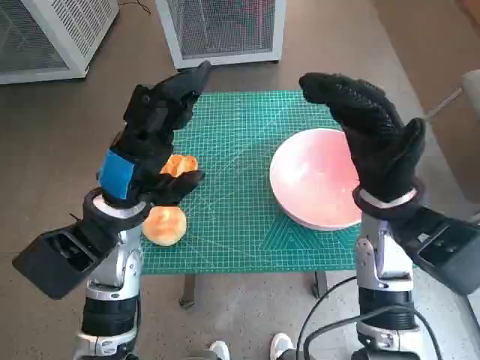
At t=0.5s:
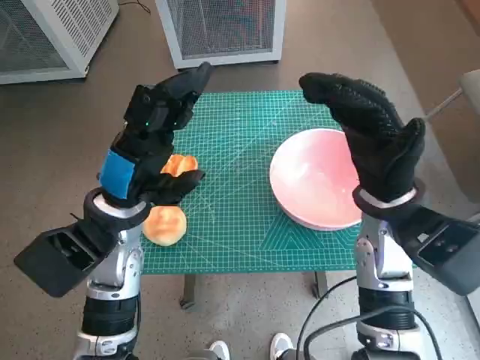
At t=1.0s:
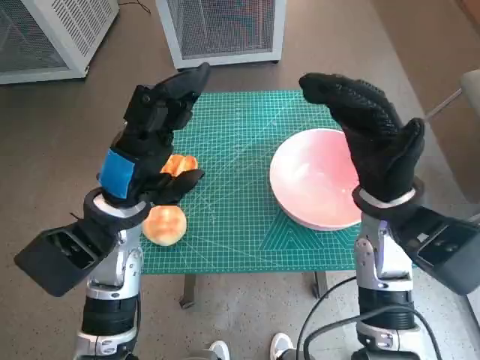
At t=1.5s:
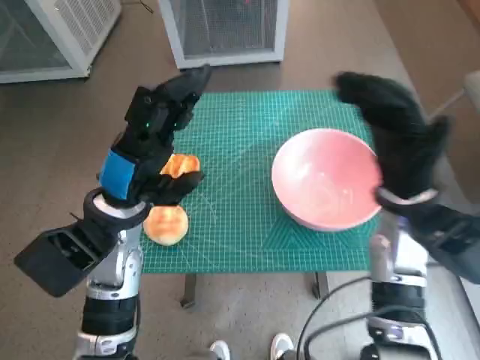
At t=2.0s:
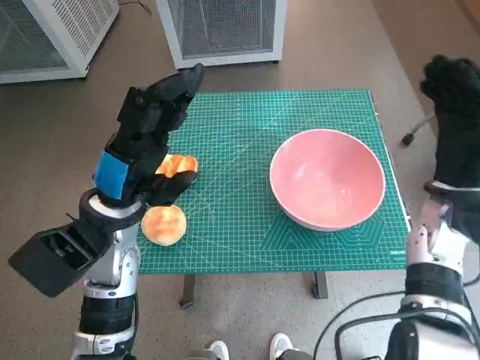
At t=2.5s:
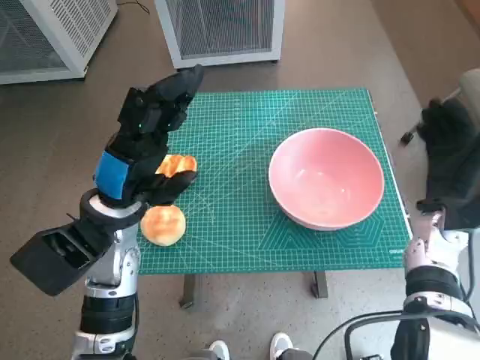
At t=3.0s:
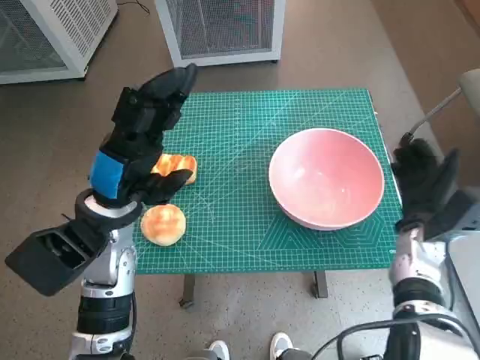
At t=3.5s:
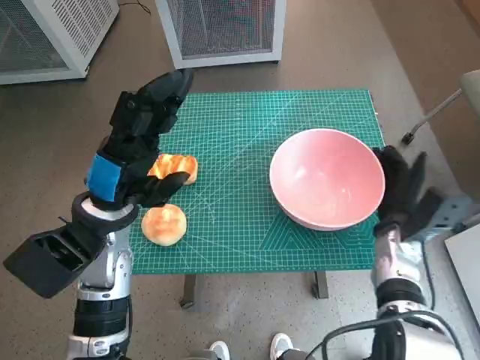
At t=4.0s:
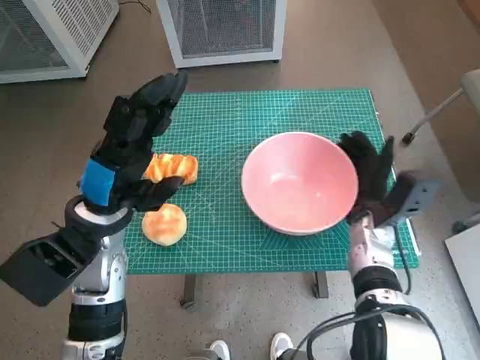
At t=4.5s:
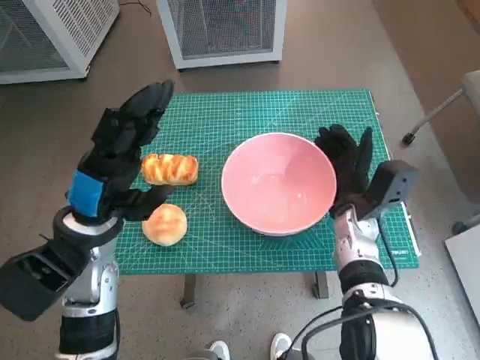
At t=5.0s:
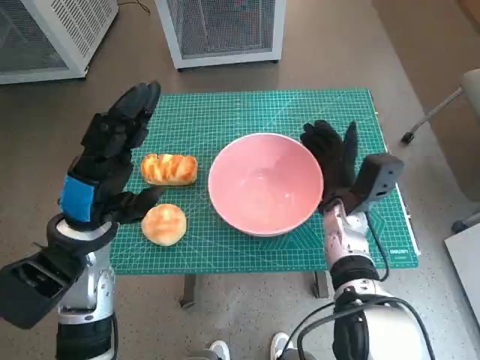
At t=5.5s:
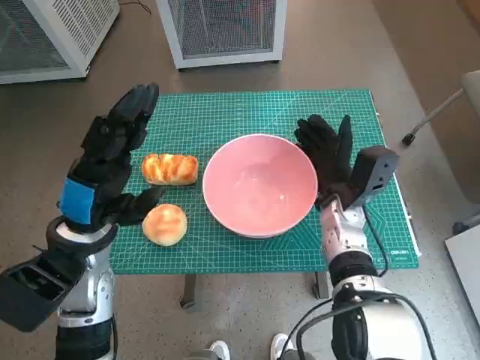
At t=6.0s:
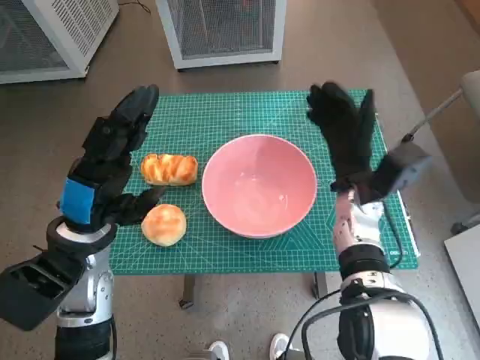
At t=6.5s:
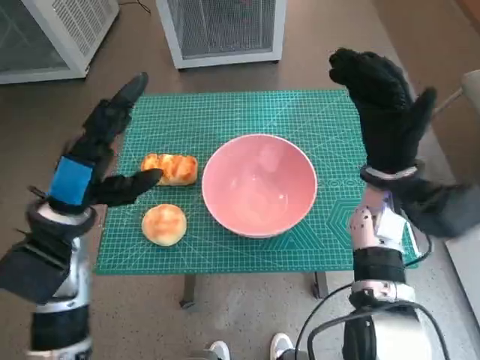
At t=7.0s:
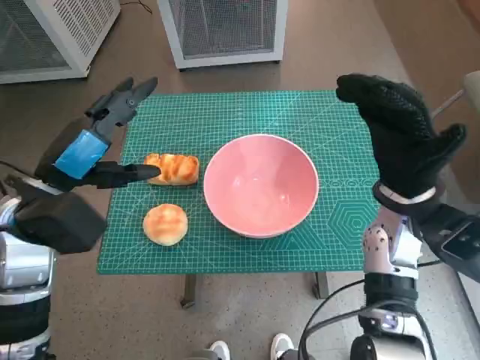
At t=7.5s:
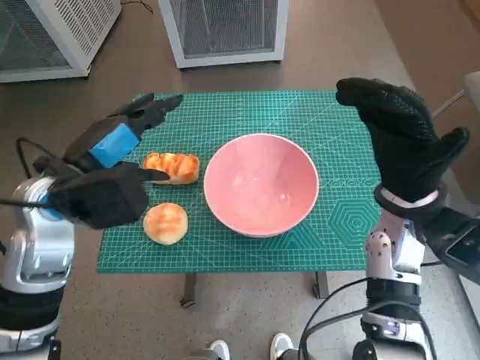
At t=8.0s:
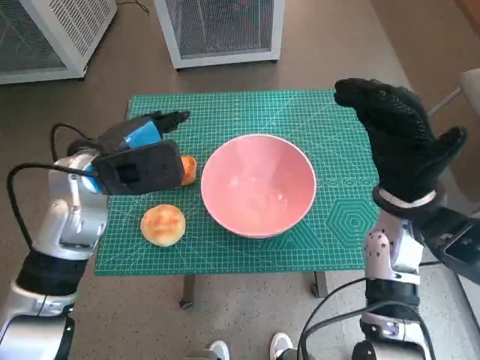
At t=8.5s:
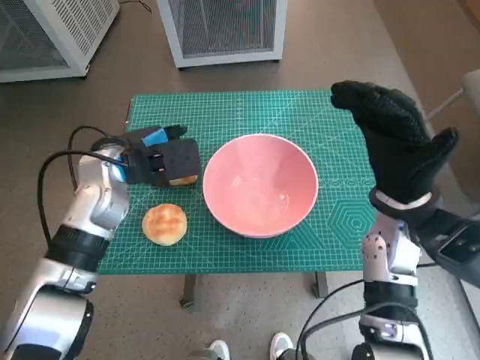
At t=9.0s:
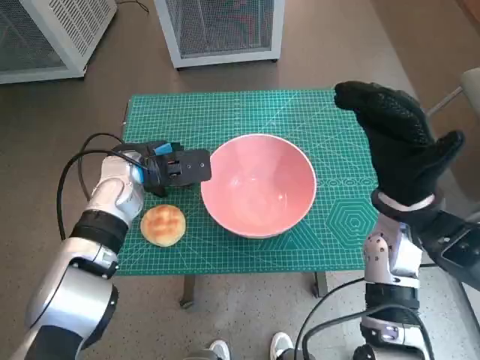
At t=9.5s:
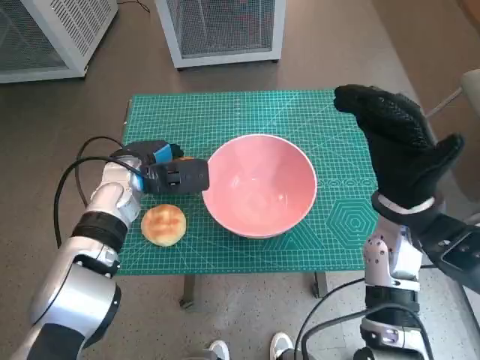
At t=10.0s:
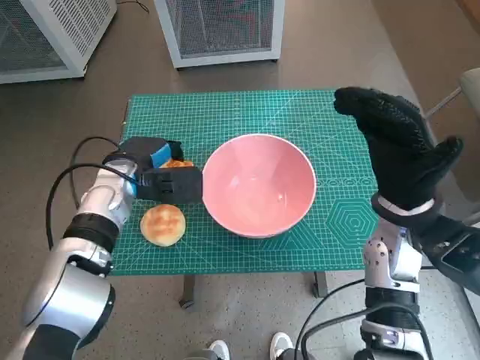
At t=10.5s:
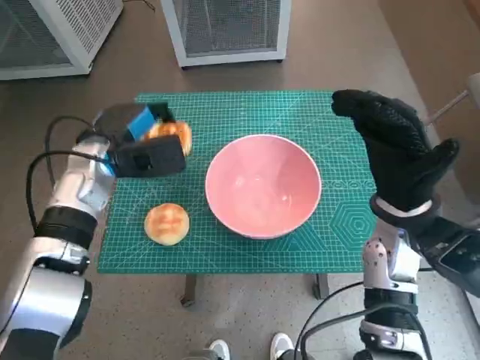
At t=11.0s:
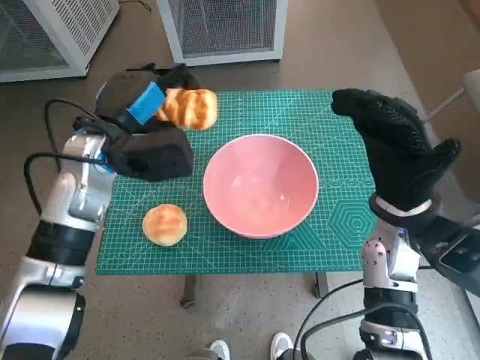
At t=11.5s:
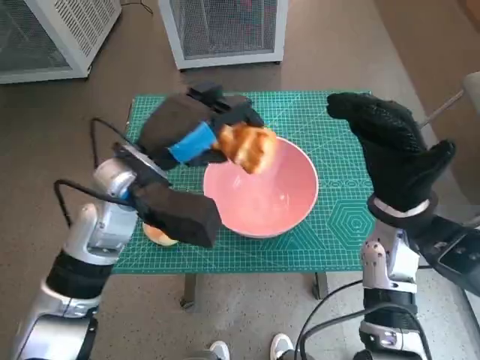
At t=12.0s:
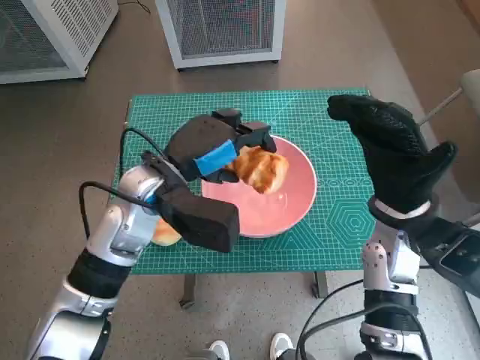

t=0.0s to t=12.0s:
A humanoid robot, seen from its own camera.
Task of the whole recording: Push the bowl into the center of the table and put the bread into the bowl.
Step, t=0.0s to t=5.5s: Move the pink bowl to the center of table with right hand.
Step, t=6.0s to t=9.5s: Grasp the long bread with left hand.
t=2.0s to t=4.0s: The right hand is displaced downward and to the left by about 10 cm.
t=4.0s to t=6.0s: The right hand is displaced upward by about 5 cm.
t=6.0s to t=8.0s: The right hand shifts approximately 5 cm upward. The left hand travels forward and upward by some 10 cm.
t=8.0s to t=10.0s: The left hand goes roughly 10 cm downward and forward.
t=10.0s to t=12.0s: The left hand moves to the right, upward and backward, roughly 10 cm.

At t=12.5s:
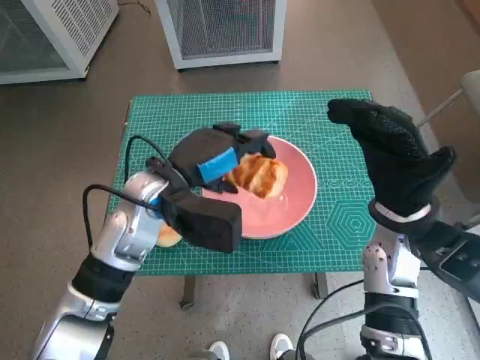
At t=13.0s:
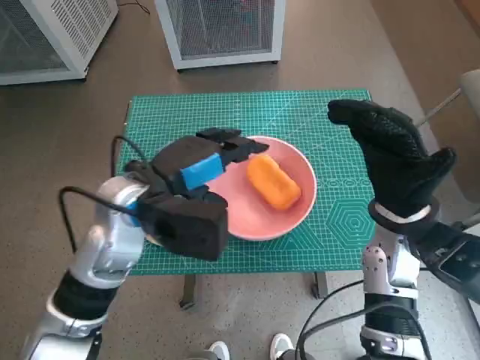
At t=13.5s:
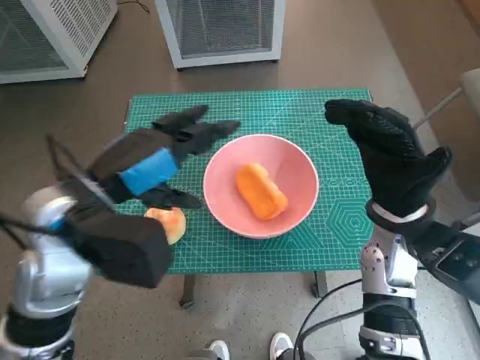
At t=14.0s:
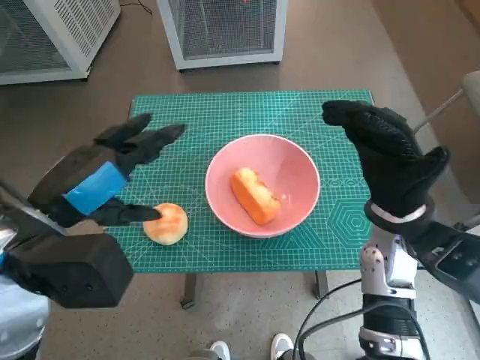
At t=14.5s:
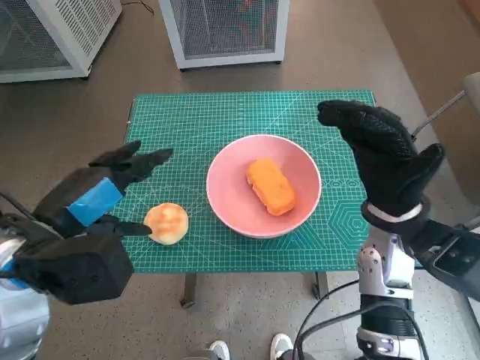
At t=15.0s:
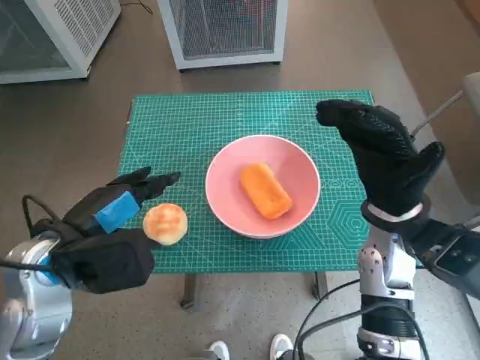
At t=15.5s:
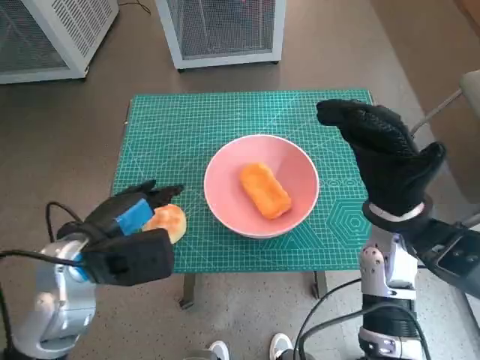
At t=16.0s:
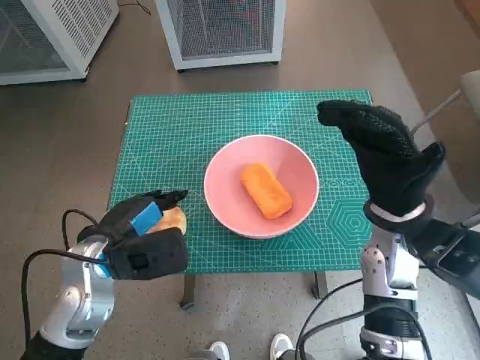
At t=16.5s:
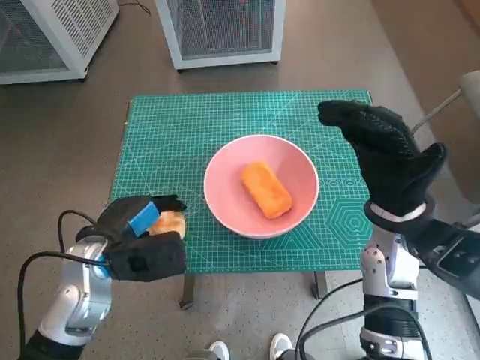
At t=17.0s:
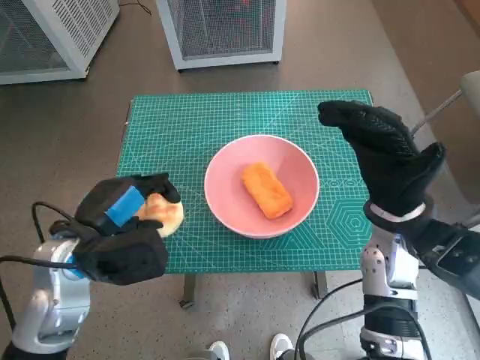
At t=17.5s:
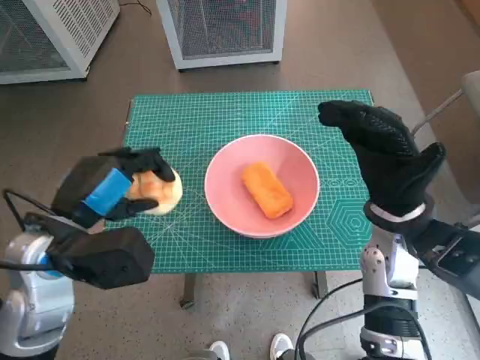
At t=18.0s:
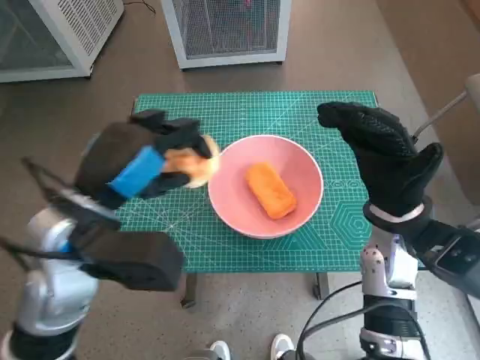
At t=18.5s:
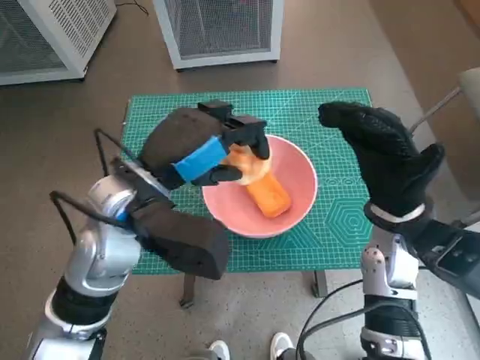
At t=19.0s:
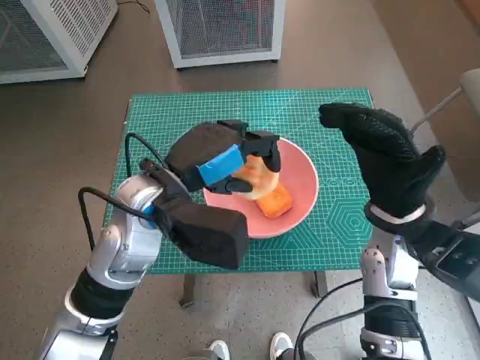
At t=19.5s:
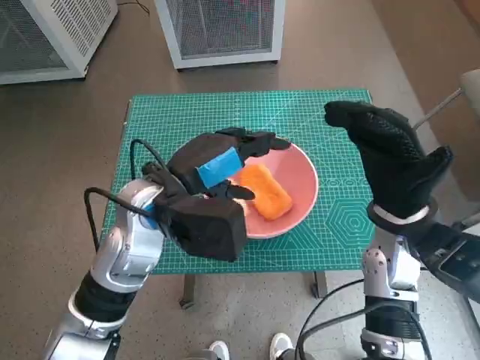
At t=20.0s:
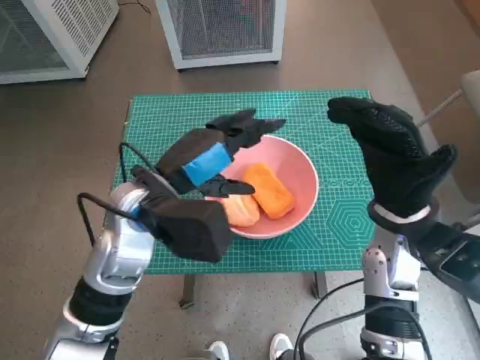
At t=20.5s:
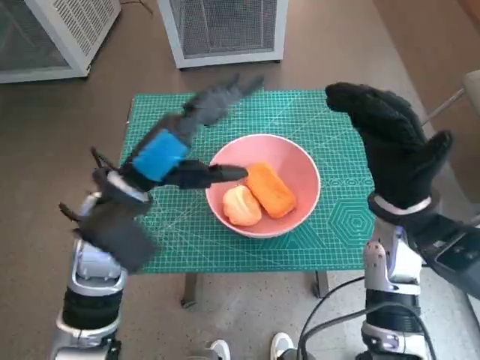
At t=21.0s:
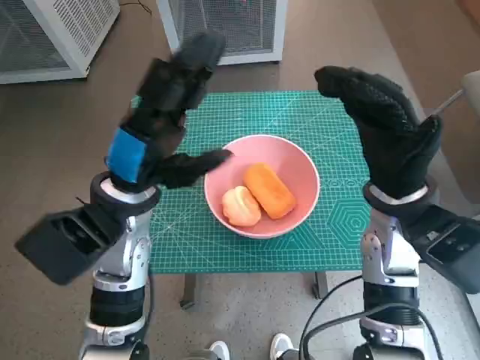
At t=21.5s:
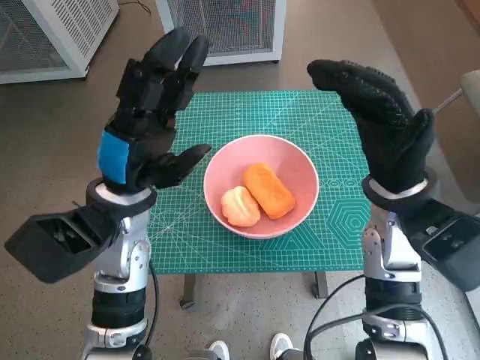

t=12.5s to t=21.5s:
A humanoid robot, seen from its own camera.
Task of the whole recording: Push the bowl into the center of the table and put the bread into the bowl.
Step, t=13.0s to t=16.5s: Grasp the round bread with left hand.
Step, t=17.0s to t=19.0s: Place the round bread in pink bowl with left hand.
t=12.5s to t=14.5s: The left hand is displaced backward and to the left by roughly 15 cm.
t=14.5s to t=17.0s: The left hand travels downward by some 5 cm.
t=17.0s to t=19.5s: The left hand heads to the right and upward, covering roughly 10 cm.

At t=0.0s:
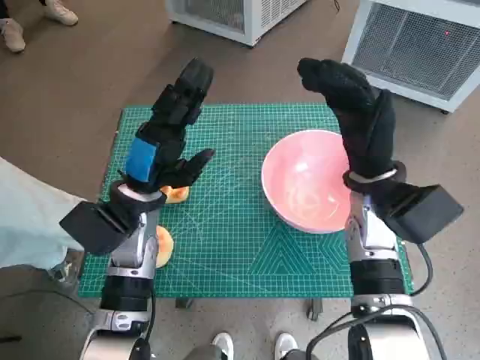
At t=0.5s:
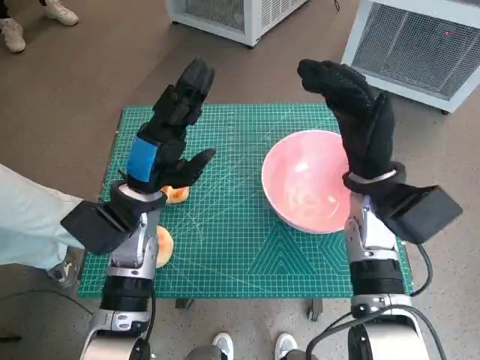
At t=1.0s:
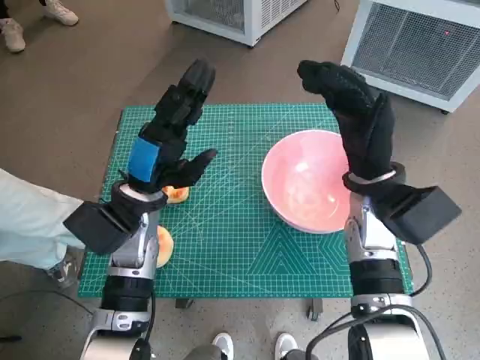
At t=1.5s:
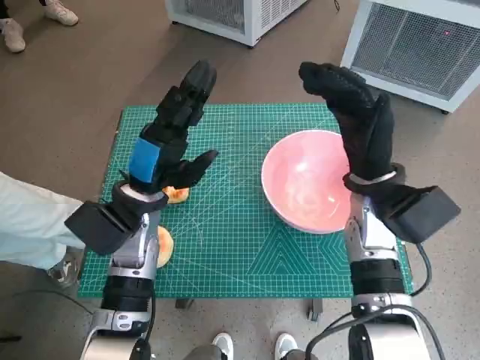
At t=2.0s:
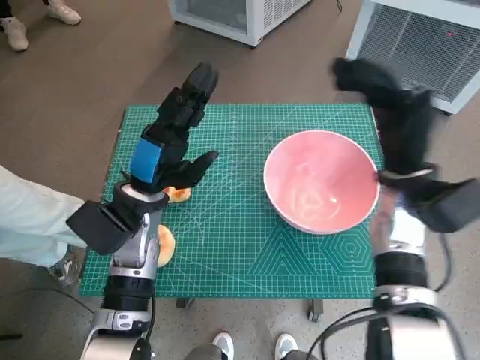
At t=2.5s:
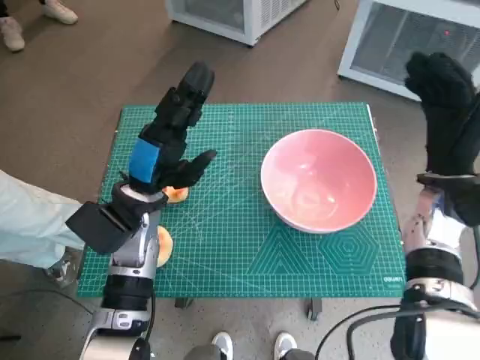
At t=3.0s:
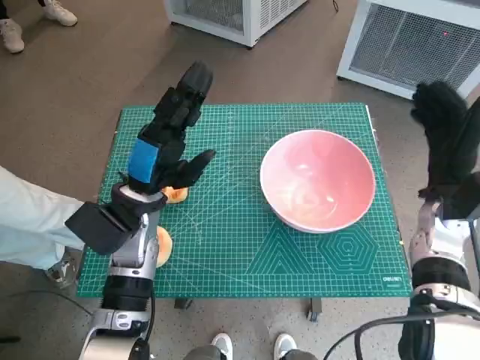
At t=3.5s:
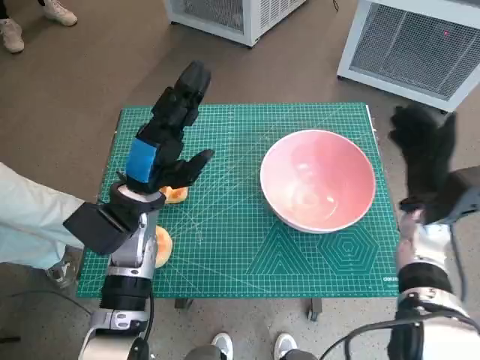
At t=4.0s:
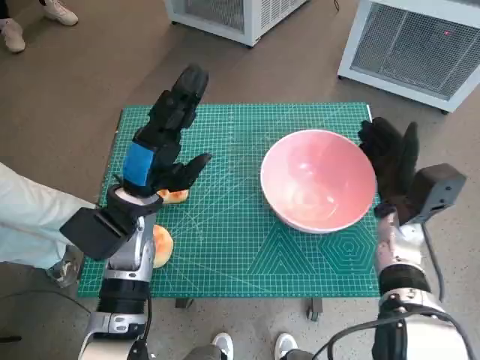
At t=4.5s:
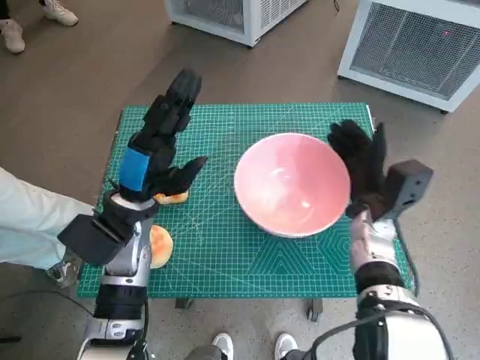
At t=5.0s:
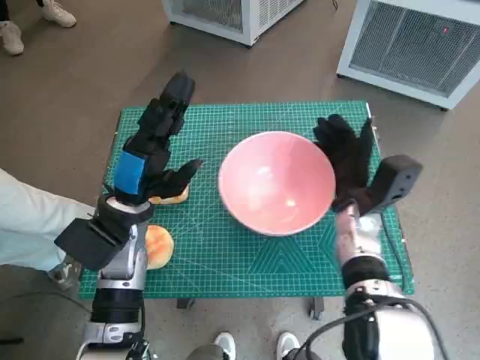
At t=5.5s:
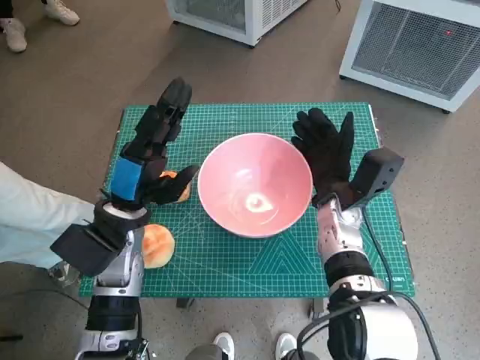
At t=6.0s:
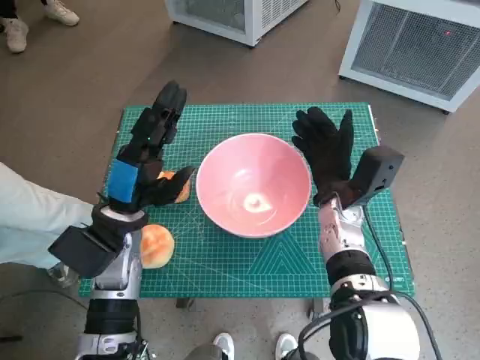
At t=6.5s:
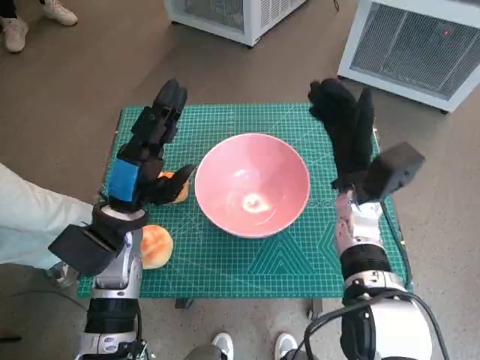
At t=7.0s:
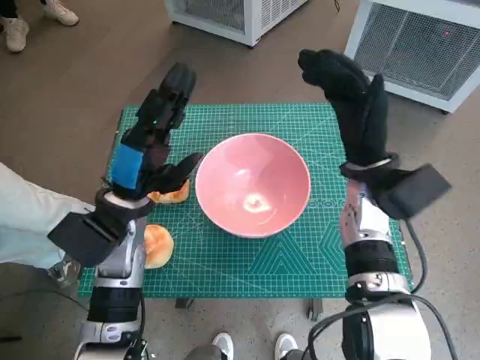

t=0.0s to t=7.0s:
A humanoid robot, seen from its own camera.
Task of the whole recording: Push the bowl into the center of the table and put the bread into the bowl.
Step, t=0.0s to t=6.0s: Move the pink bowl to the center of table with right hand.
t=2.0s to t=3.5s: The right hand moves downward and to the right, some 10 cm.
t=3.5s to t=5.0s: The right hand moves to the left, roughly 10 cm.
t=5.0s to t=7.0s: The right hand travels upward by approximately 10 cm.
